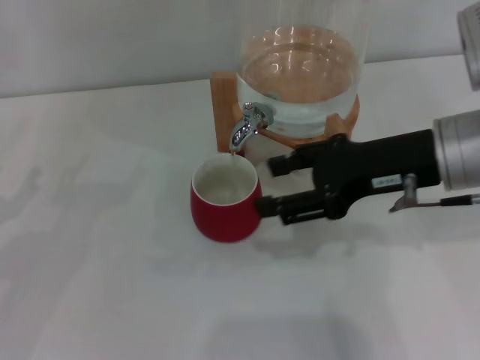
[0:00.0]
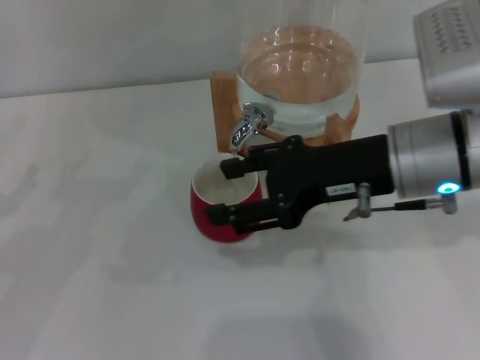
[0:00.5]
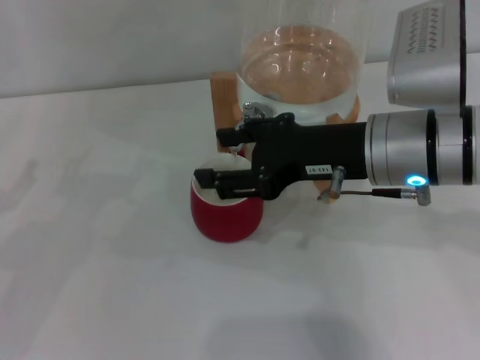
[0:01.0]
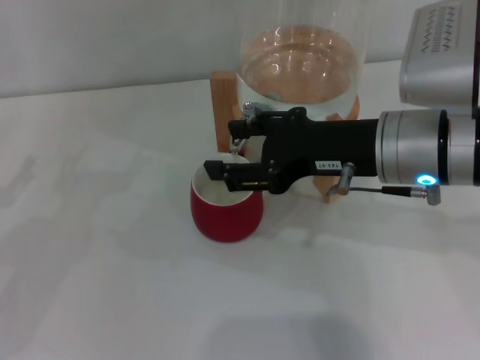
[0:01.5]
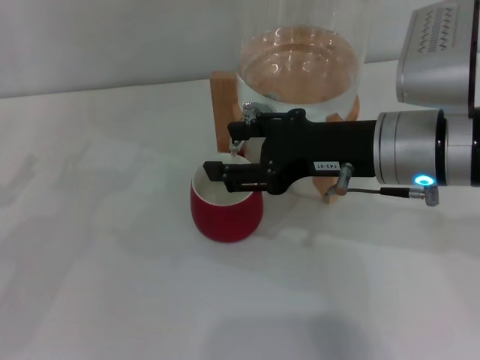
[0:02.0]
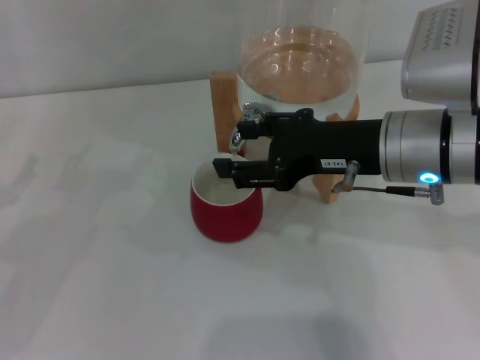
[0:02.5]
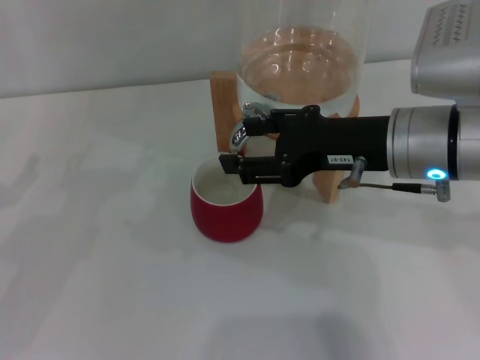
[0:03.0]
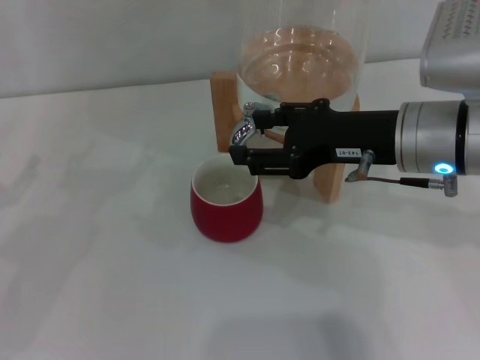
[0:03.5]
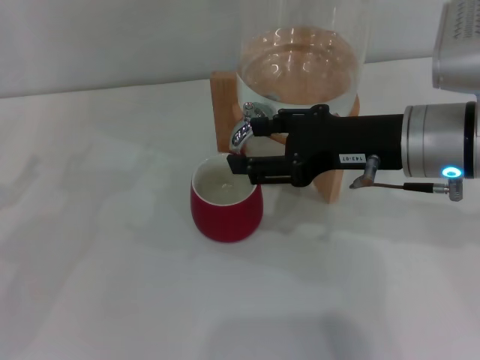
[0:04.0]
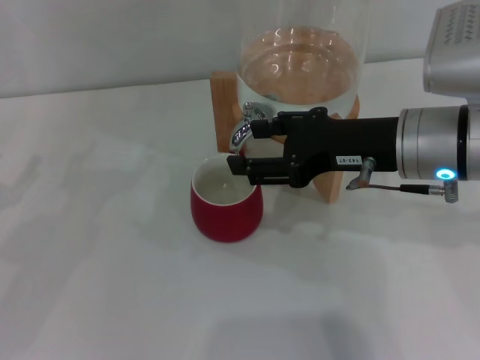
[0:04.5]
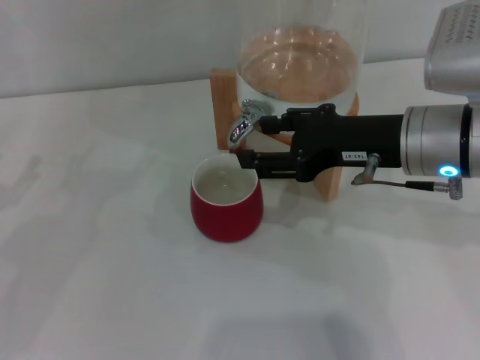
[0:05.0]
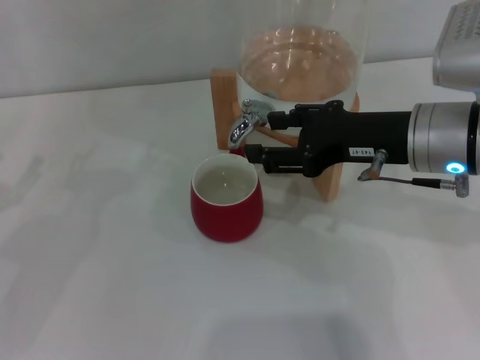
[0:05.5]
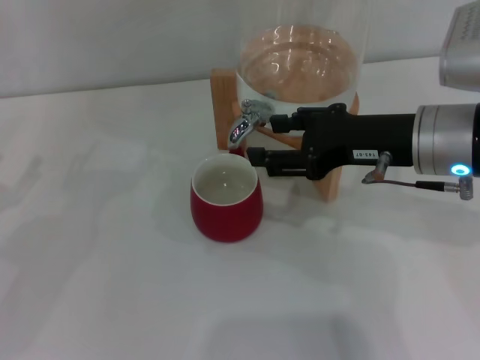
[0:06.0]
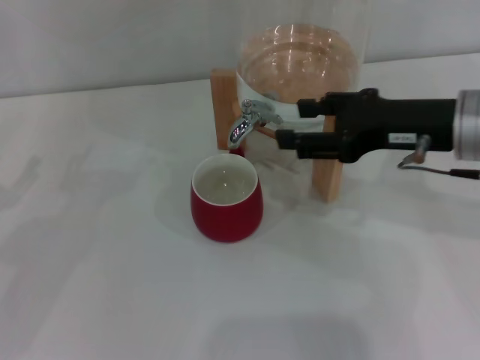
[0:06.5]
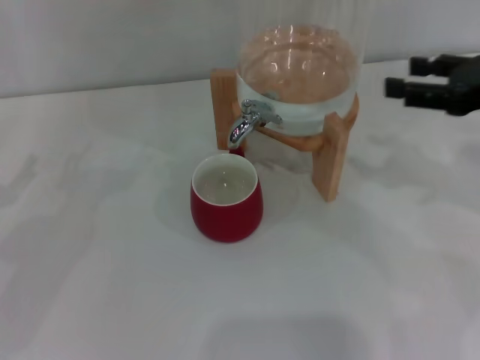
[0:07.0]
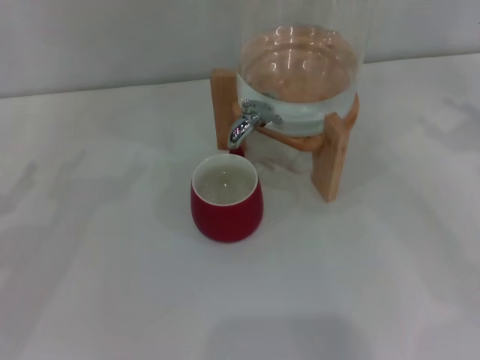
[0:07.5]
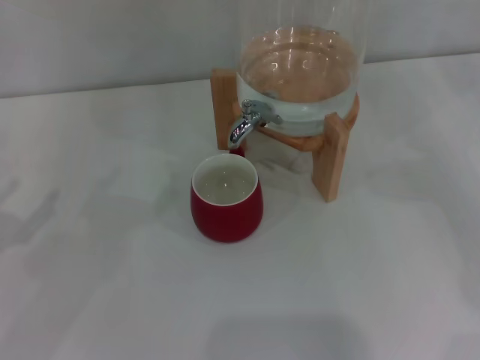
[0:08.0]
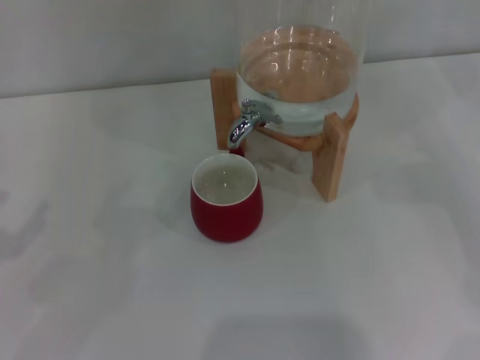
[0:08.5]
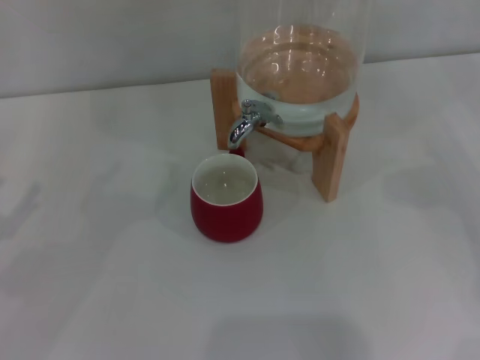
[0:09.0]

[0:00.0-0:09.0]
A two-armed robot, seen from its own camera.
Task of the whole recording: the left gripper pick up the red cup and place it horizontally under the faucet, the right gripper turn on the faucet to fill the cup, and then turn off the faucet.
Step, 0:00.0 to 0:06.0: Close the dispenser valve with the right gripper.
0:00.0 to 0:04.5: The grippers make only small movements.
0:04.5 to 0:07.0: The right gripper heads to the right, covering about 15 cm.
0:07.0 to 0:09.0: The right gripper goes roughly 15 cm to the right and downward.
